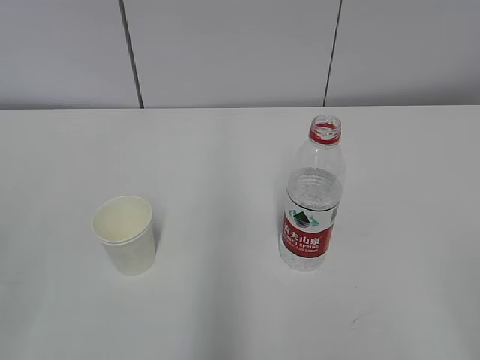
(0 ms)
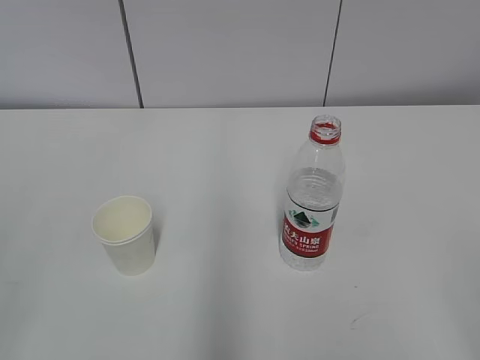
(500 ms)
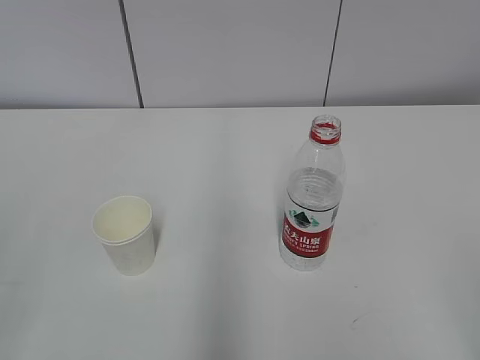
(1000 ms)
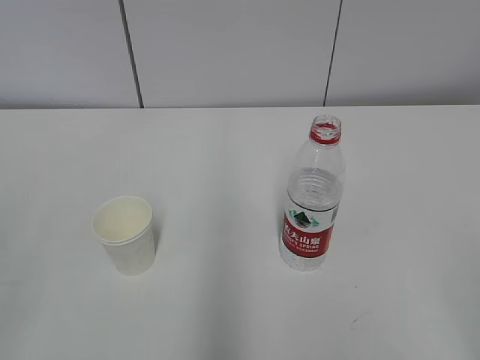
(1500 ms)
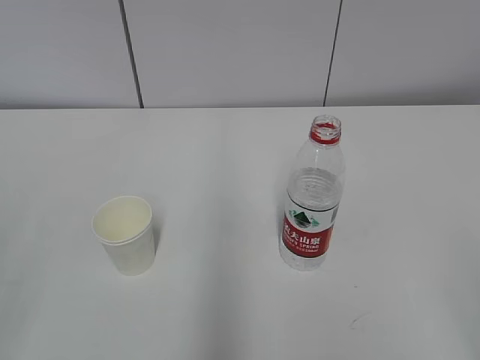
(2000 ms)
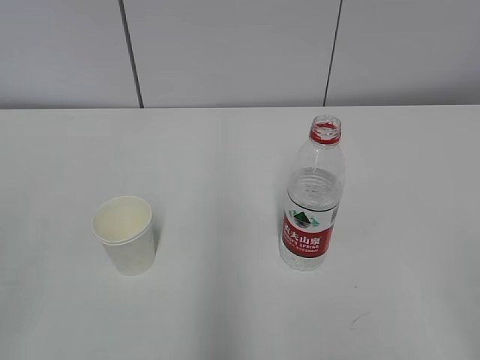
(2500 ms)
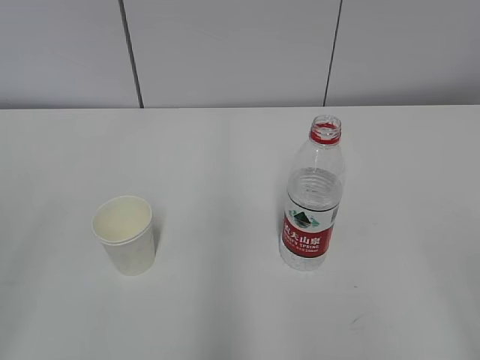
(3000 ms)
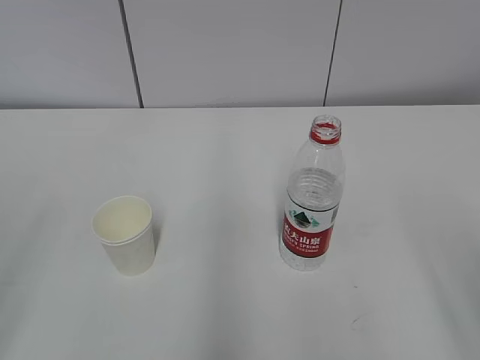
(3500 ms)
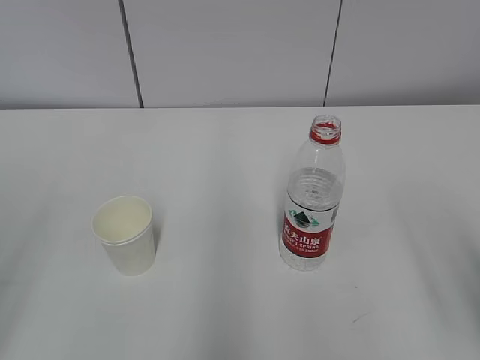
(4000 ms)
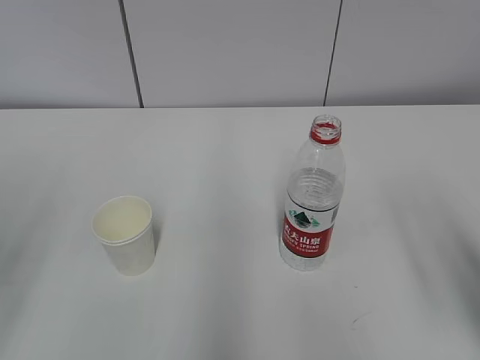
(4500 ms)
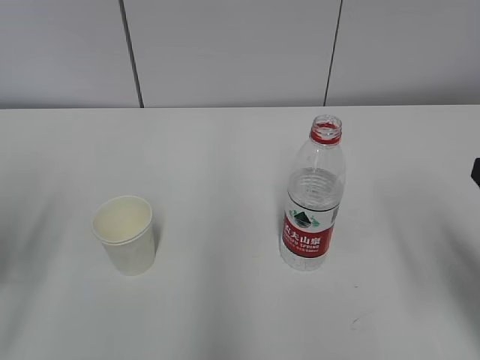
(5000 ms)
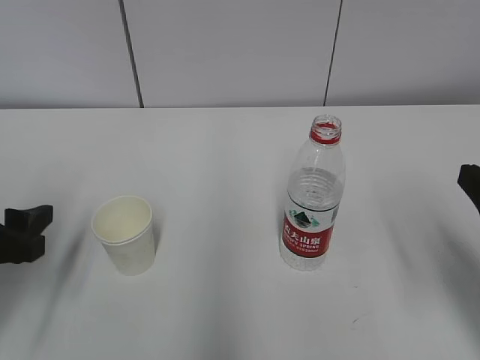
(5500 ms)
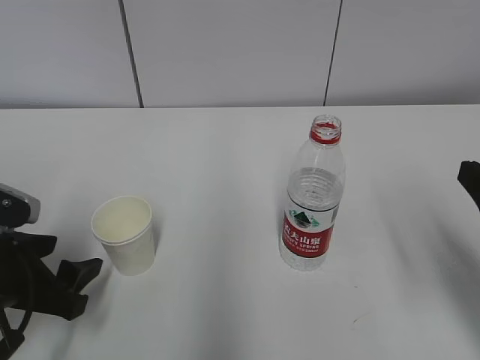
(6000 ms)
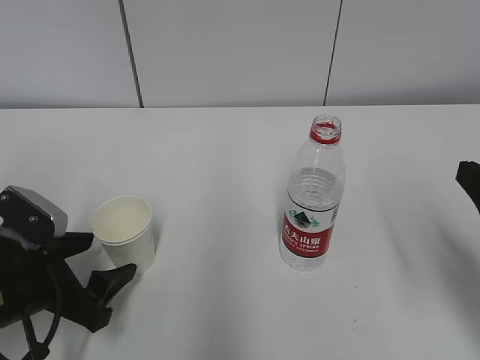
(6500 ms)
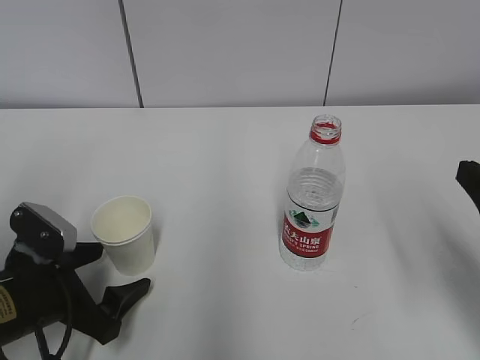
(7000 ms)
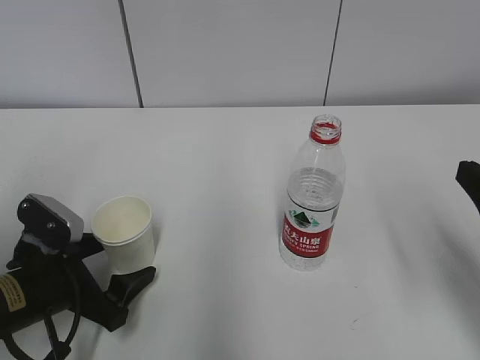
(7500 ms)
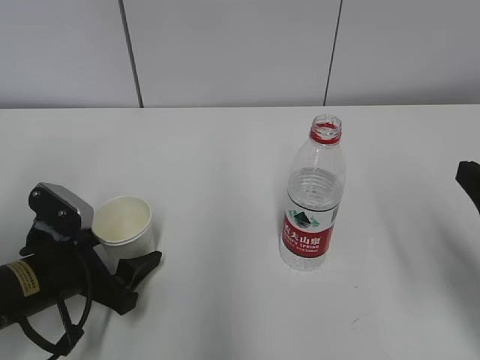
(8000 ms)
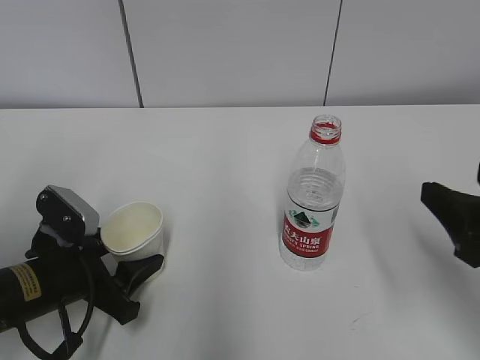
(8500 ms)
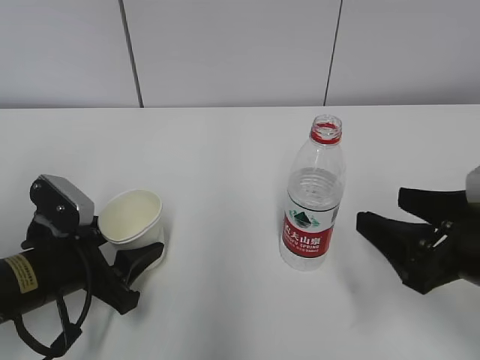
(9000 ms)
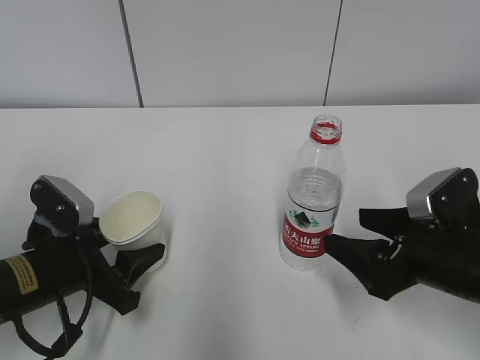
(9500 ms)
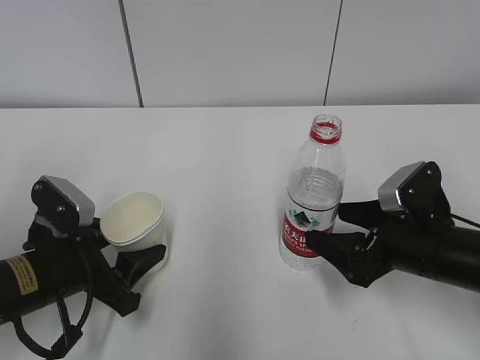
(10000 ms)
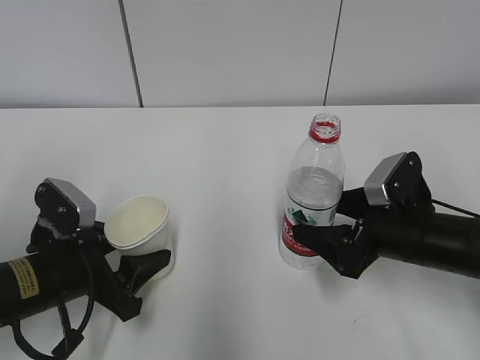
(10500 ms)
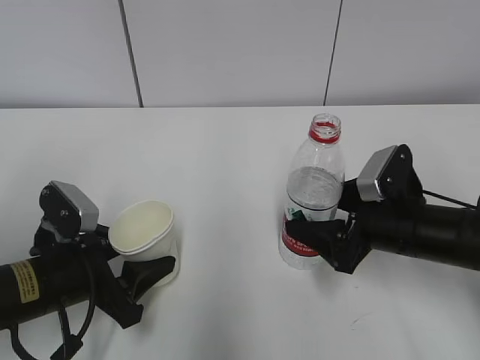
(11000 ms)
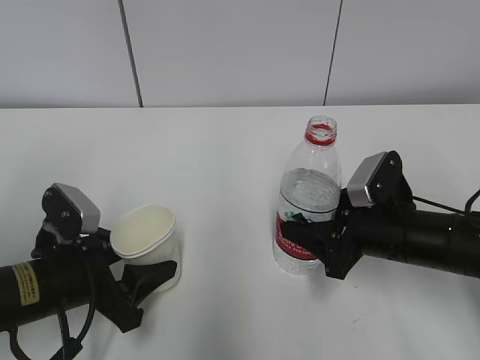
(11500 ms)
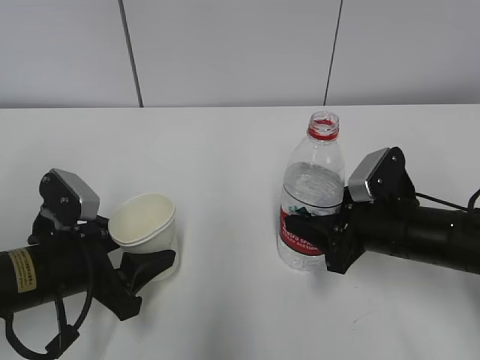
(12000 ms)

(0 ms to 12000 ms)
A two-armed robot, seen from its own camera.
Step, 0 ms - 6500 ms: Grab the paper cup with the left hand.
Step, 7000 ms - 9500 ms: Grab the water bottle with the right hand.
4000 ms - 6000 ms: The left gripper travels downward, forward and to the right by approximately 20 cm. The right gripper moves forward, about 5 cm.
6000 ms - 8000 ms: The left gripper shifts by some 5 cm, and opens up.
8000 ms - 10000 ms: The left gripper closes its fingers. The right gripper goes about 15 cm downward, forward and to the left.
10000 ms - 12000 ms: The right gripper closes up.

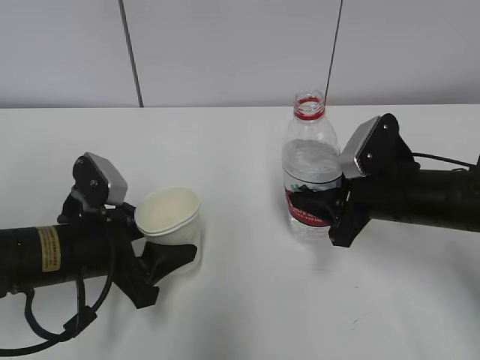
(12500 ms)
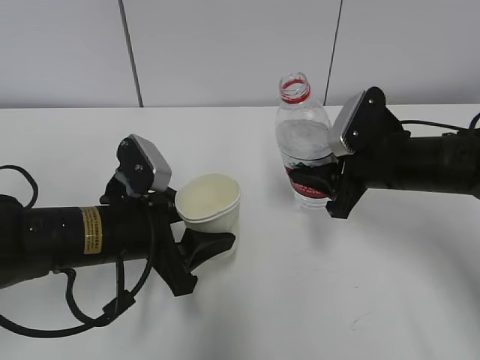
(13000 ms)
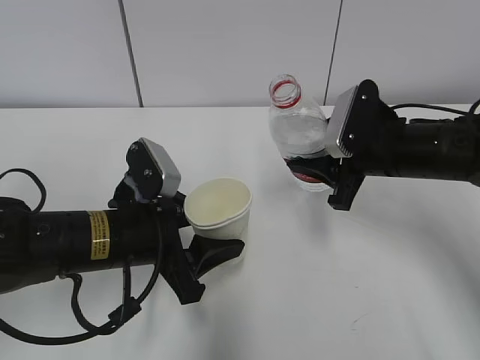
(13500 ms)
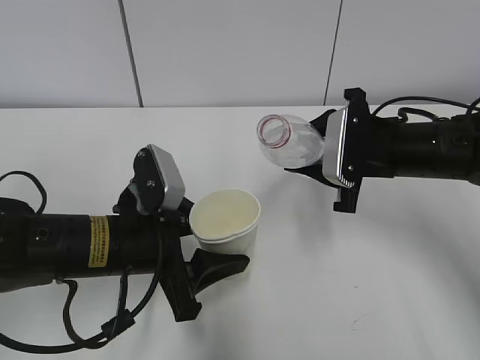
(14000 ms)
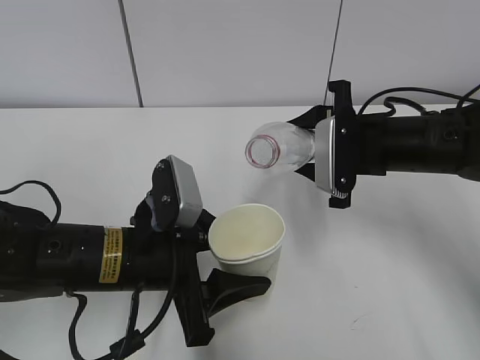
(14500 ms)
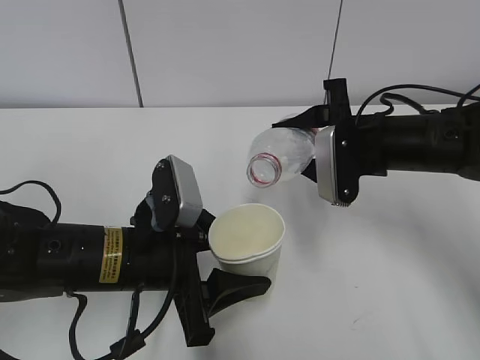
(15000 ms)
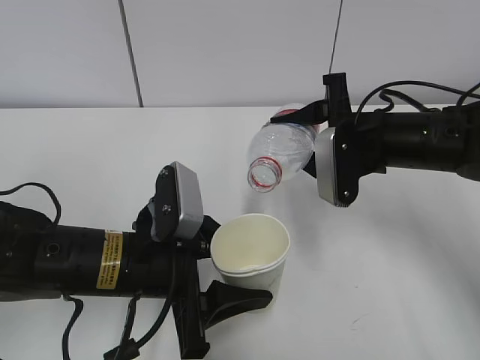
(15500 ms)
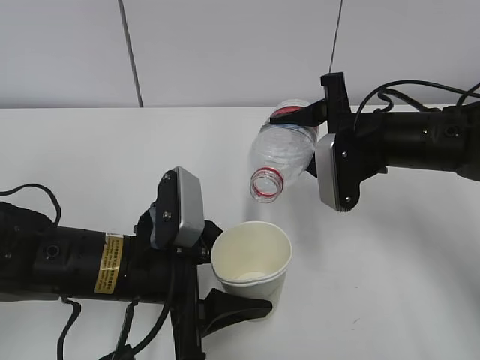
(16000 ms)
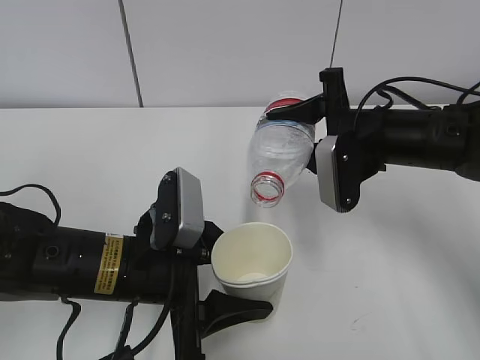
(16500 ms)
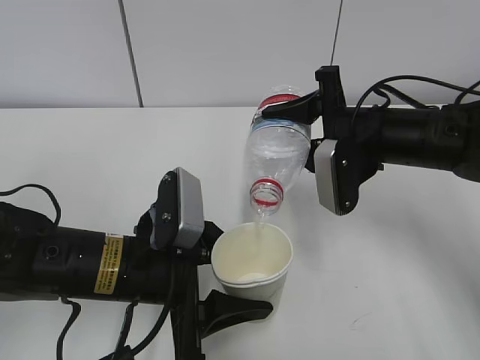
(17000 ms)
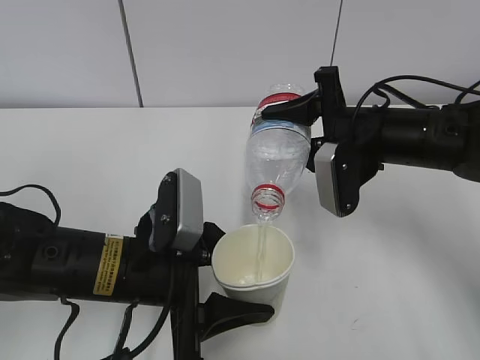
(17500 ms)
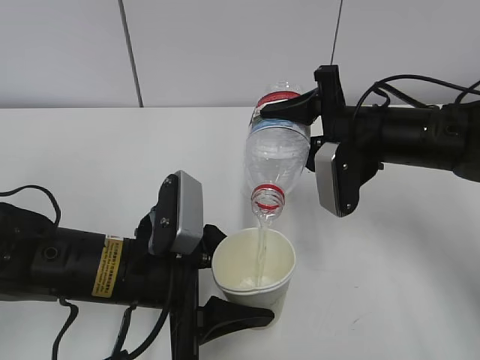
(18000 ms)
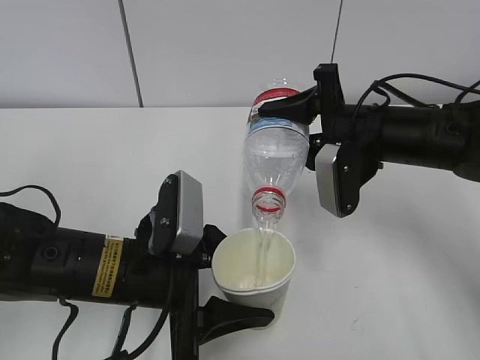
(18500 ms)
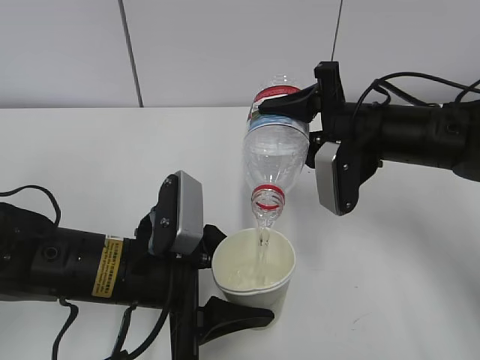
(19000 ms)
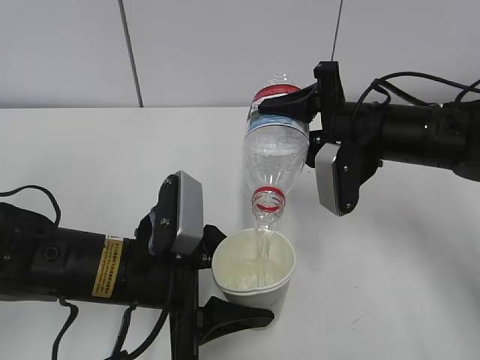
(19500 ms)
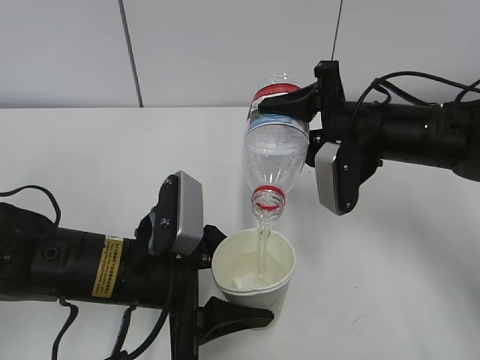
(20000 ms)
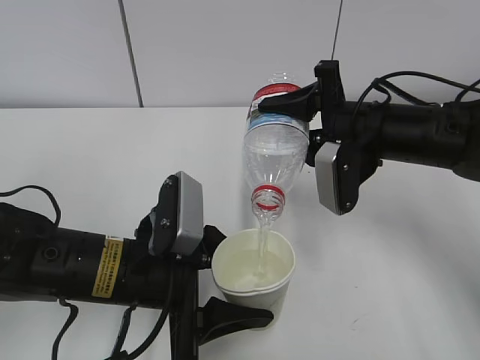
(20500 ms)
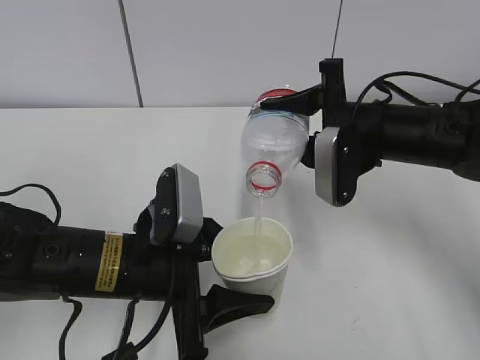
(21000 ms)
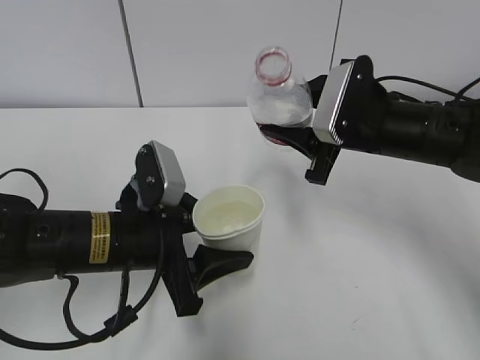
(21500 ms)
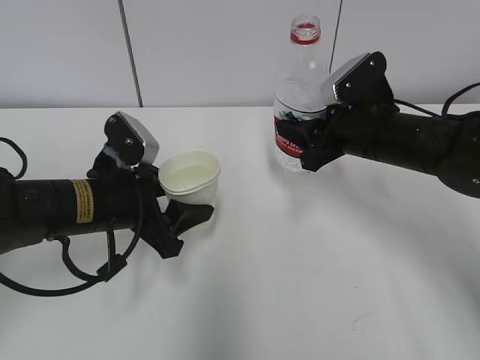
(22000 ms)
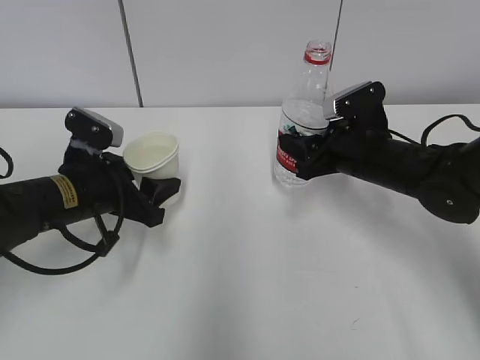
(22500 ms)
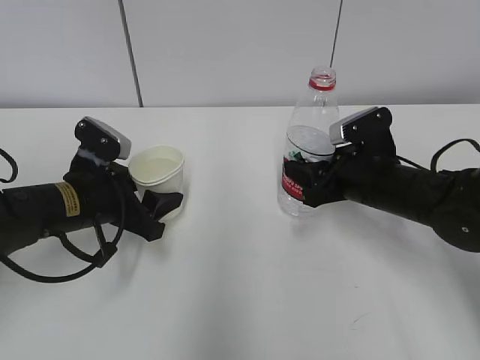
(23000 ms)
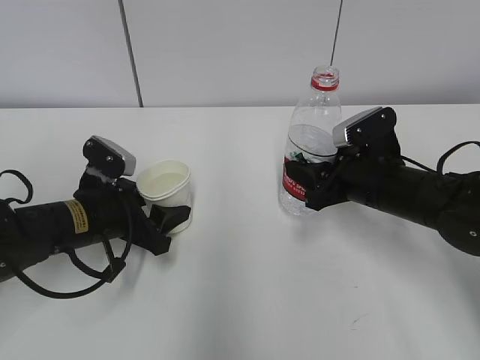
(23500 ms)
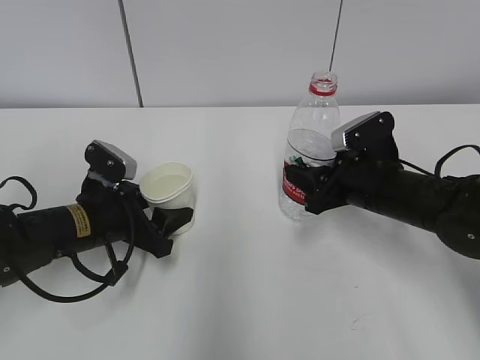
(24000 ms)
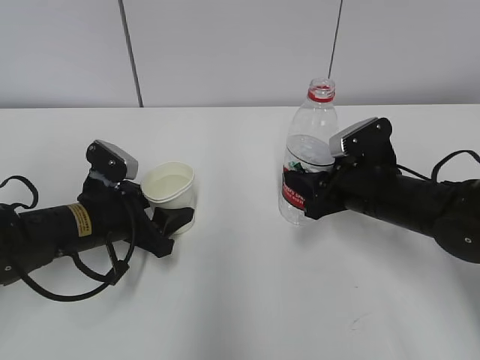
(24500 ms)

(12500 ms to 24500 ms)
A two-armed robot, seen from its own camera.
Step, 14500 ms - 17500 ms: Fill water with the left hand.
Step, 14500 ms - 17500 ms: Pour water with the right hand.
Step, 18500 ms - 20500 ms: Place the paper cup with the left hand.
12500 ms - 14500 ms: The left gripper moves to the right, about 5 cm. Meanwhile the right gripper changes place by about 5 cm.
16500 ms - 18500 ms: There are only small adjustments of the grippers.
18500 ms - 20500 ms: Both grippers stay about where they are.
20500 ms - 22500 ms: The right gripper shifts some 5 cm downward; the left gripper travels forward and to the left by roughly 15 cm.

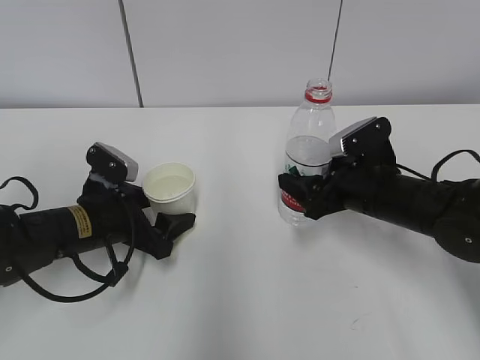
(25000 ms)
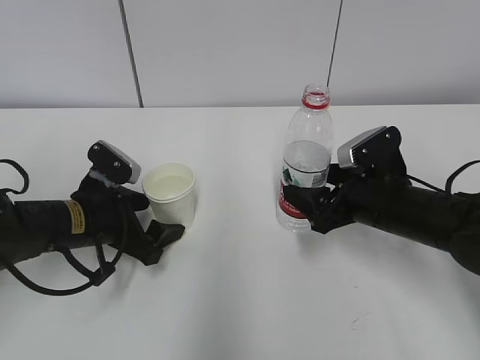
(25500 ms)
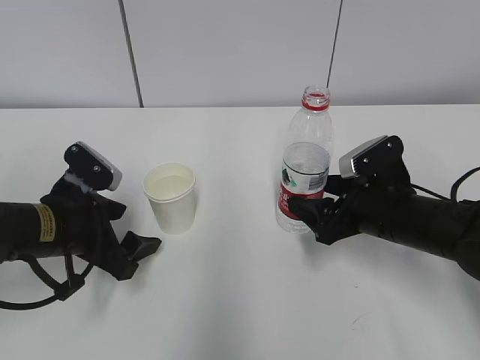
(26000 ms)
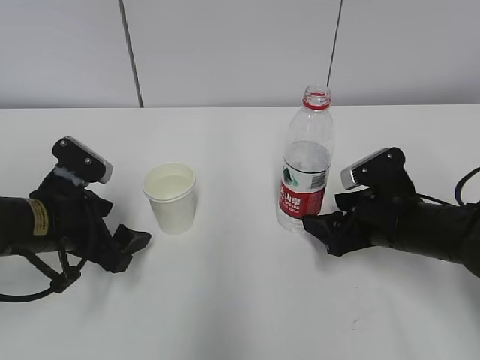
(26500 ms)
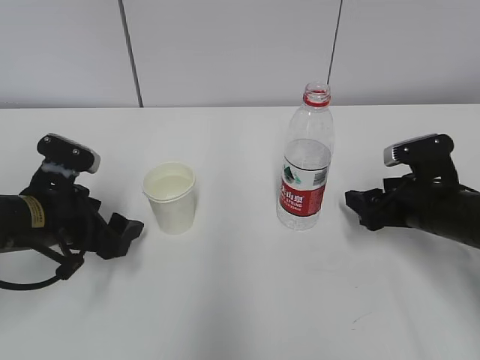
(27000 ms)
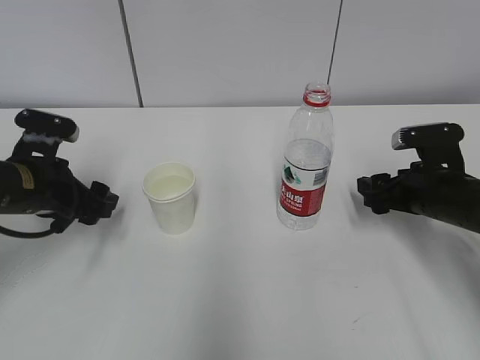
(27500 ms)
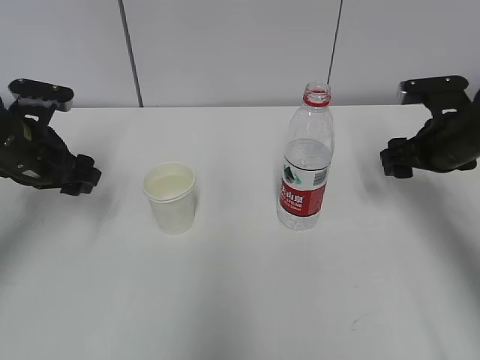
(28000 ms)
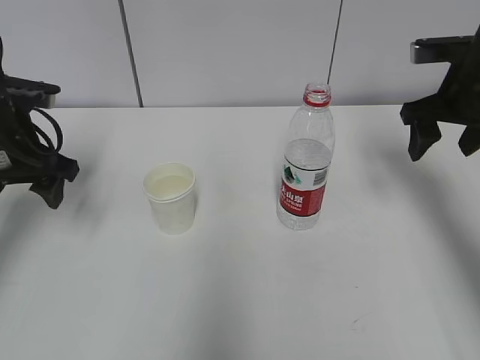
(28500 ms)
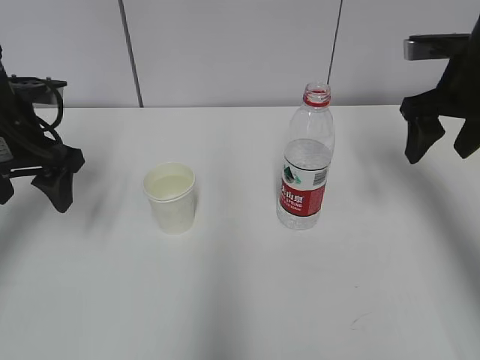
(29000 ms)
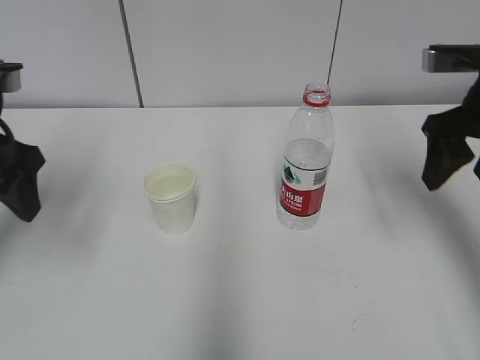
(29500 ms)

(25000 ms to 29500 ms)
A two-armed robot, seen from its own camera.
25000 ms - 27000 ms: The right gripper heads to the right, covering roughly 5 cm. Meanwhile the left gripper moves roughly 5 cm.
27000 ms - 29500 ms: The grippers both shift upward by some 15 cm.
